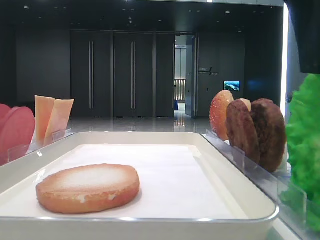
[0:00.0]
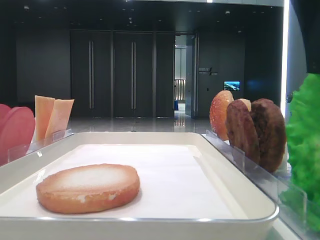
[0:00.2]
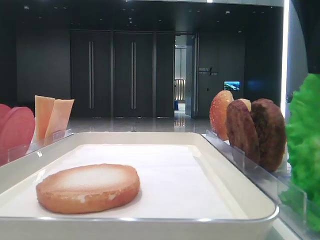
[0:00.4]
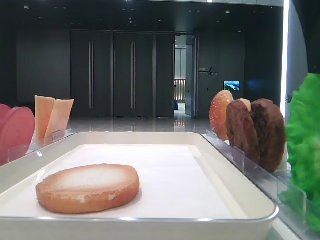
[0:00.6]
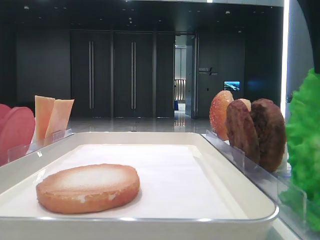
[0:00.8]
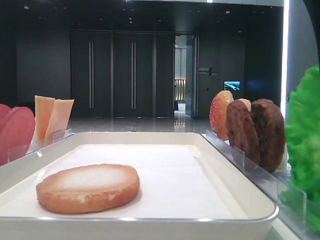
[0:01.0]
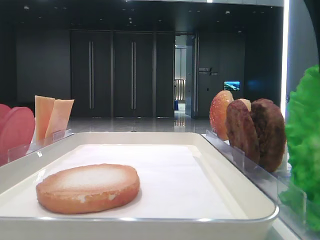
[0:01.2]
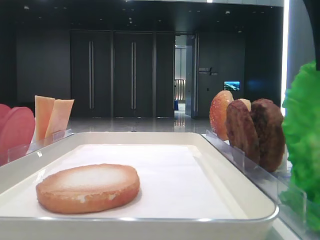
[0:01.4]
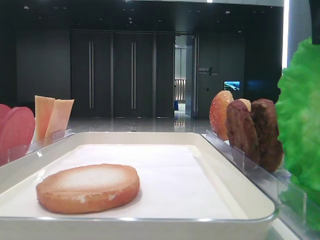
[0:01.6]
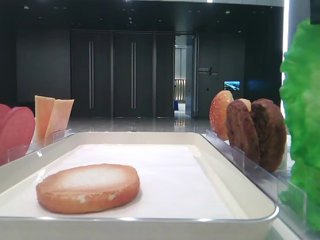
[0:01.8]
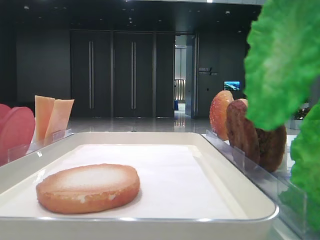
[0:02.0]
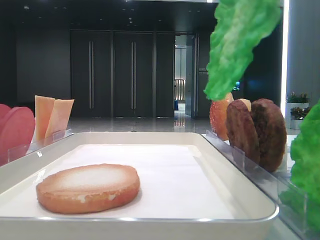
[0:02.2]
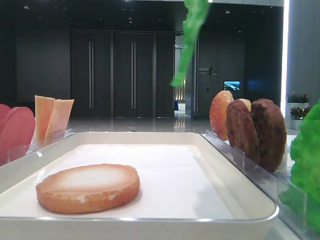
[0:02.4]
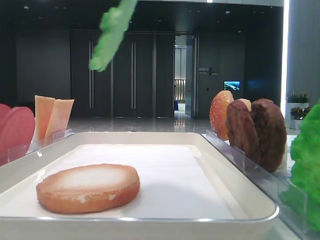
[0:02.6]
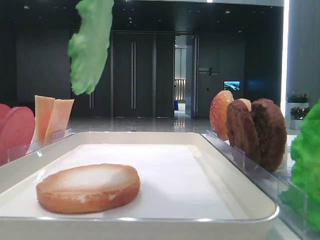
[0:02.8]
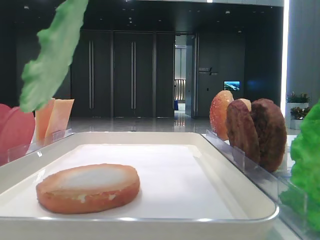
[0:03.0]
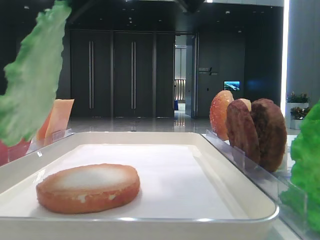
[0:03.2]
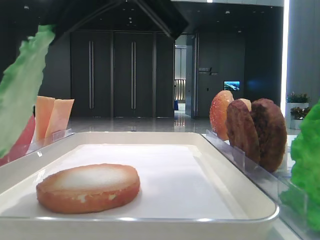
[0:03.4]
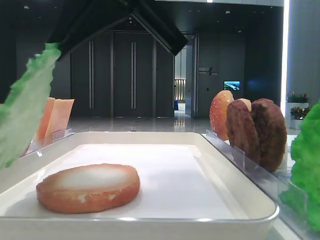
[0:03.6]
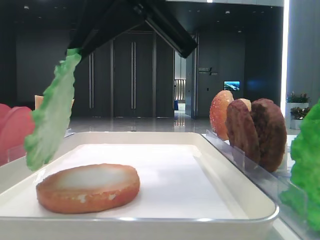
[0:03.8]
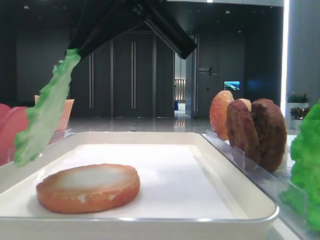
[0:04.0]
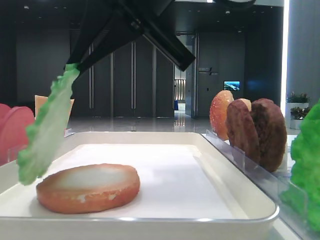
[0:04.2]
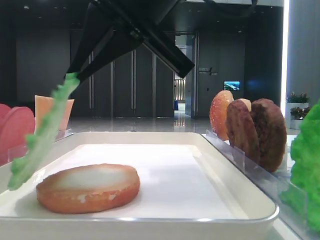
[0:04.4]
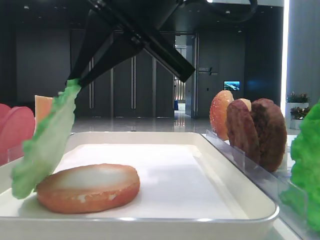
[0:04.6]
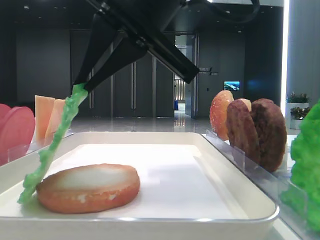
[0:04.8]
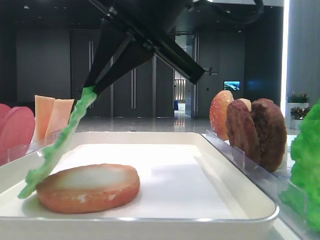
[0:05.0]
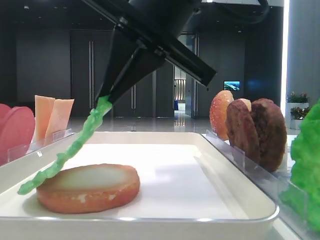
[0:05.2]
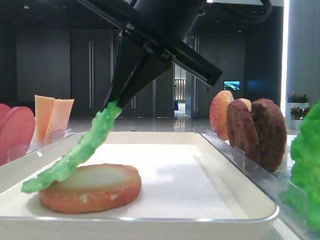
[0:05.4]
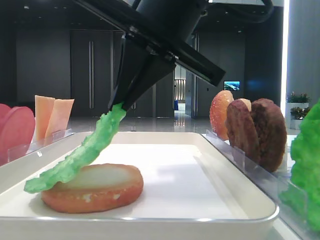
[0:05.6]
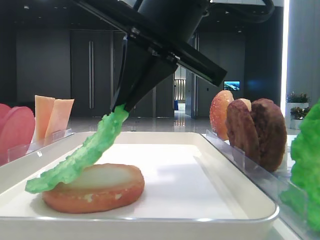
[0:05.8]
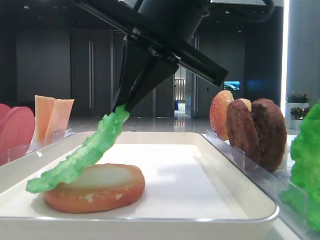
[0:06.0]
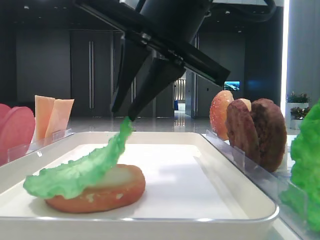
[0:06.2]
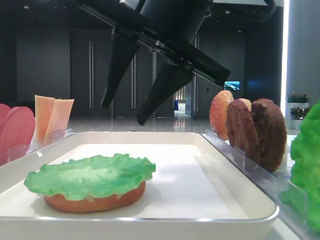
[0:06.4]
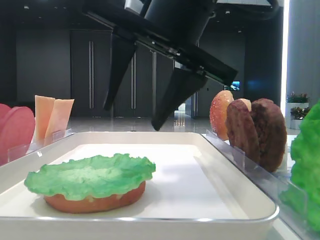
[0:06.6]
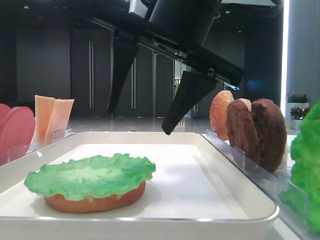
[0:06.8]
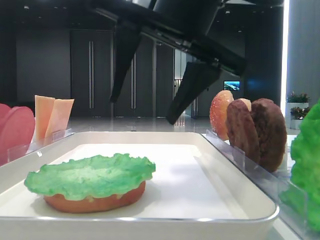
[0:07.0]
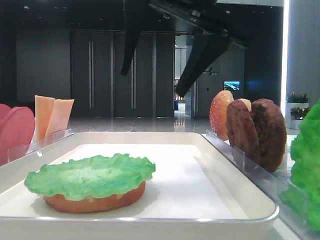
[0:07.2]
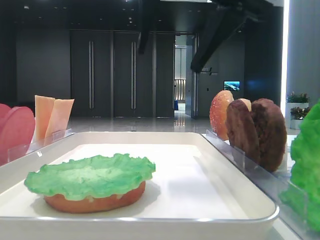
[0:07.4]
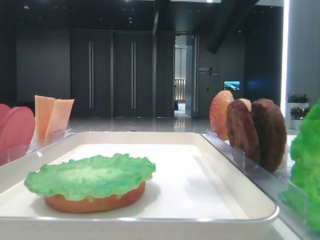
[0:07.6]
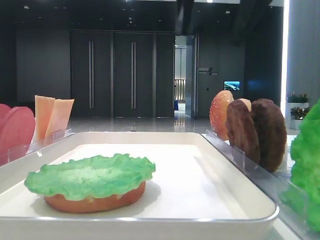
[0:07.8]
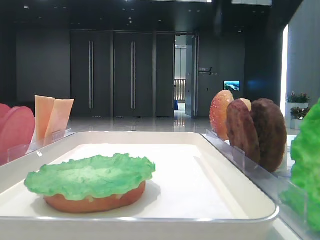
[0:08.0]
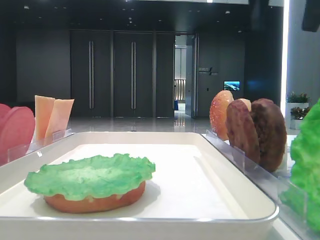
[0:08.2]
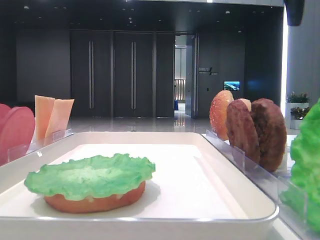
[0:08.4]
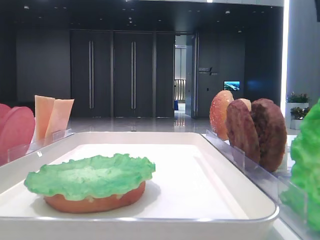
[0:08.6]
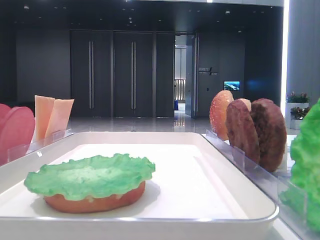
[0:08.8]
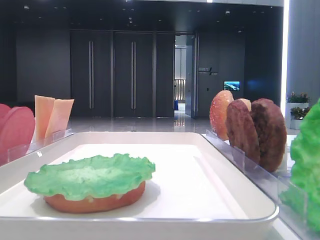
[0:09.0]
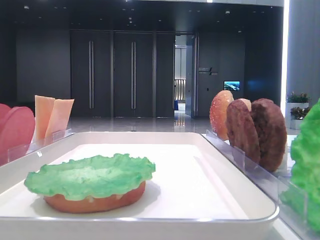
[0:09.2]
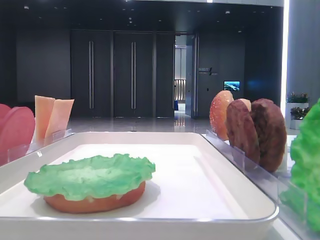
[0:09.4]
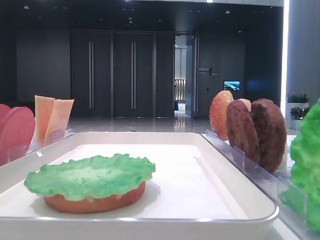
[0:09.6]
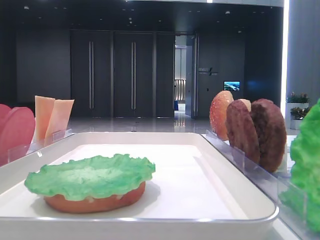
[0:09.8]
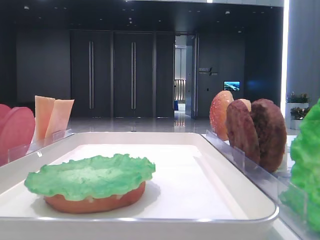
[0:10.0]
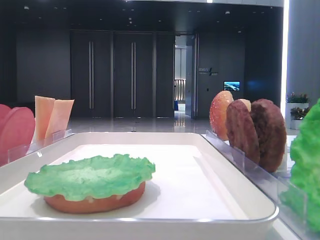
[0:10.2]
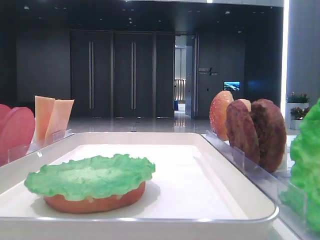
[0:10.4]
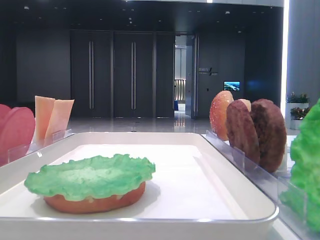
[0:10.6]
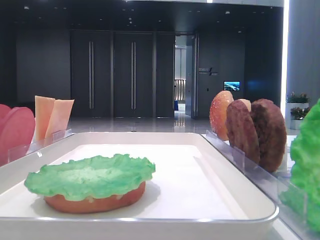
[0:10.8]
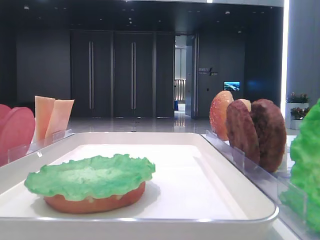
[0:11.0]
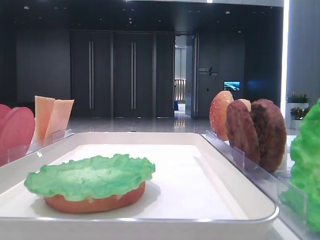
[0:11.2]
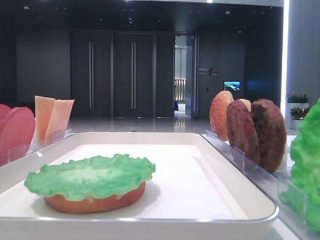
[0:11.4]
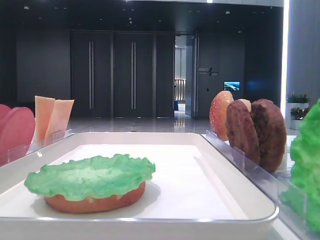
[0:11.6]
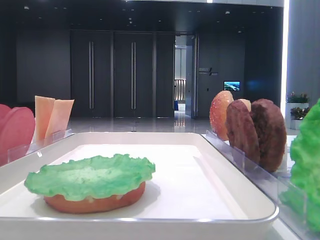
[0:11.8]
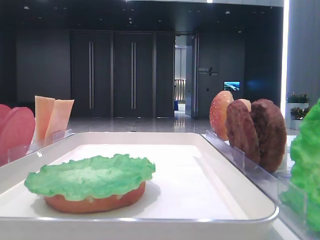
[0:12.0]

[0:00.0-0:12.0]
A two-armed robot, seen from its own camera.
Step, 0:01.2 to 0:06.2: Place the lettuce leaf on the bread slice with the right hand.
0:00.0 to 0:01.6: The right gripper closes.
0:01.6 to 0:03.0: The right gripper goes some 10 cm to the left.
0:03.0 to 0:04.4: The right gripper moves downward, about 5 cm.
0:04.4 to 0:06.0: There are only small adjustments of the grippers.
0:06.0 to 0:07.6: The right gripper goes some 10 cm upward, and opens its fingers.
0:07.6 to 0:09.0: The right gripper heads to the right, covering about 20 cm.
